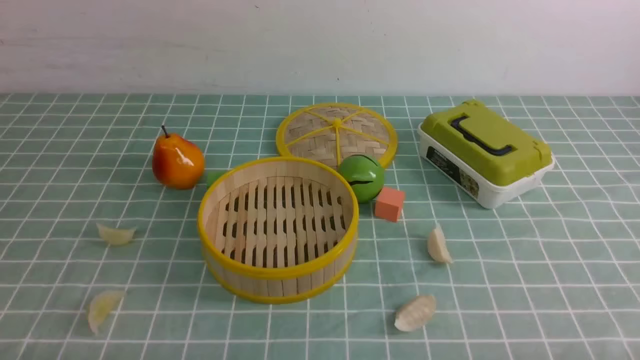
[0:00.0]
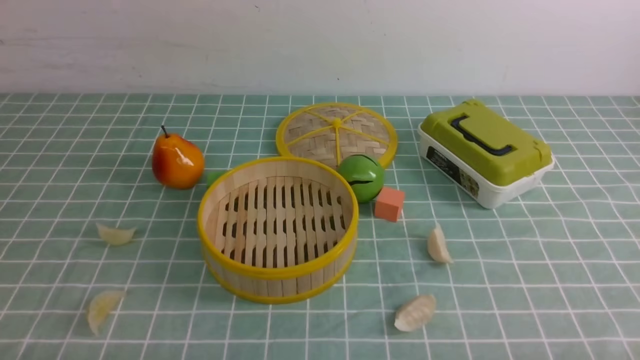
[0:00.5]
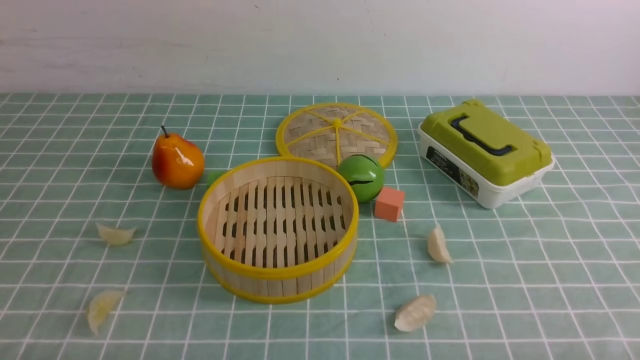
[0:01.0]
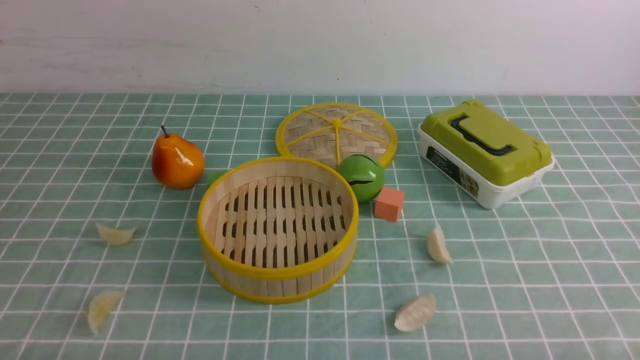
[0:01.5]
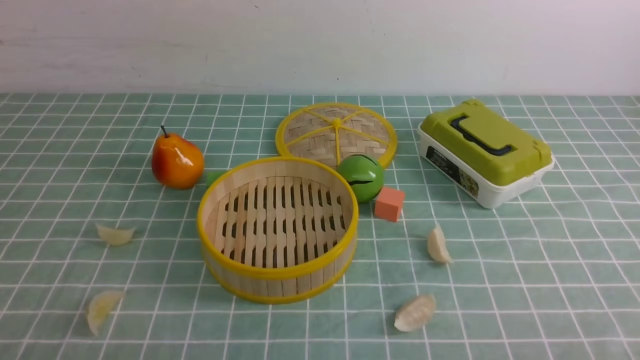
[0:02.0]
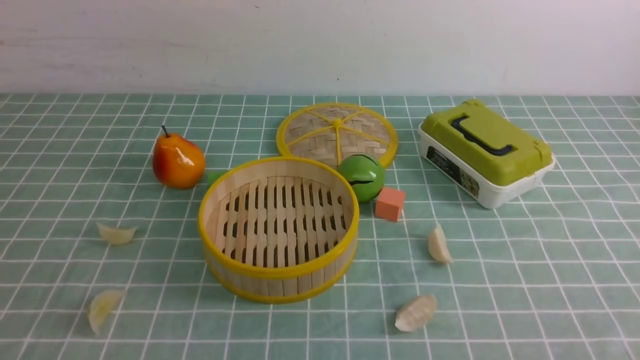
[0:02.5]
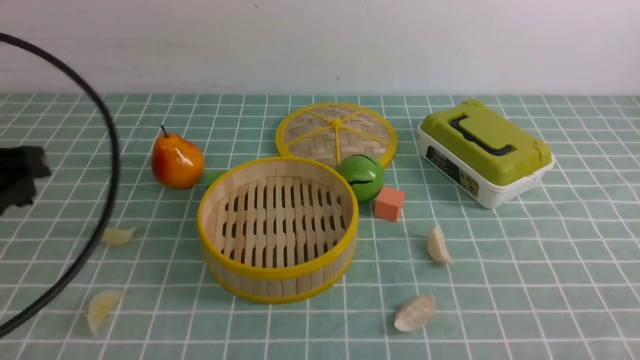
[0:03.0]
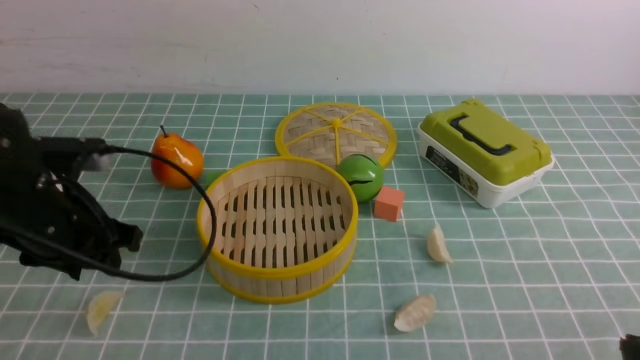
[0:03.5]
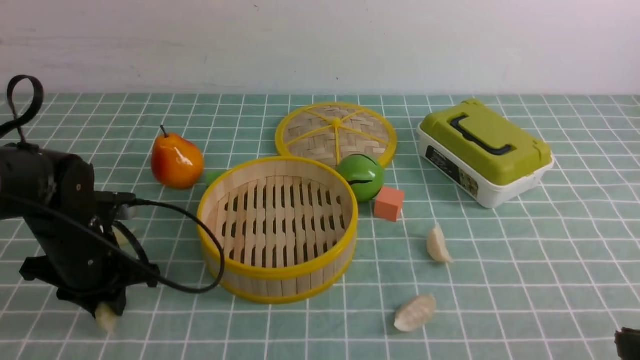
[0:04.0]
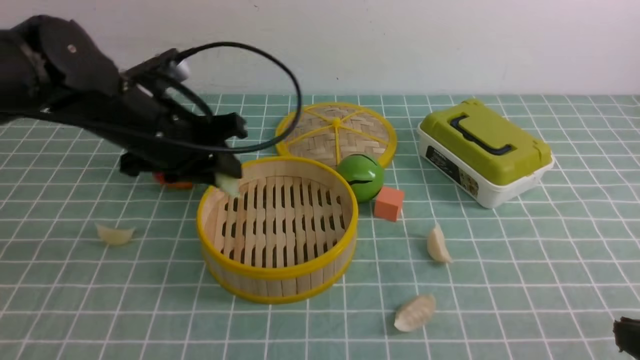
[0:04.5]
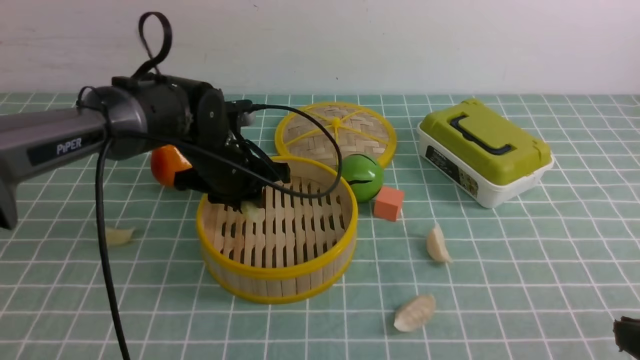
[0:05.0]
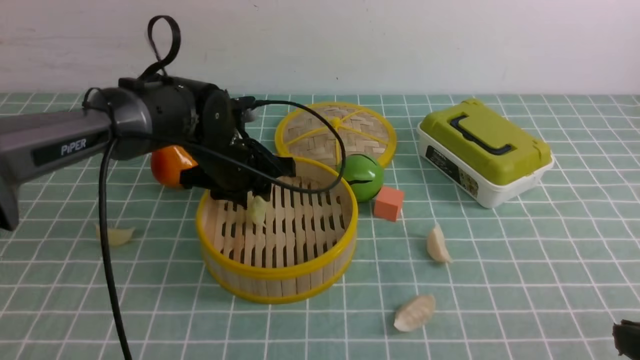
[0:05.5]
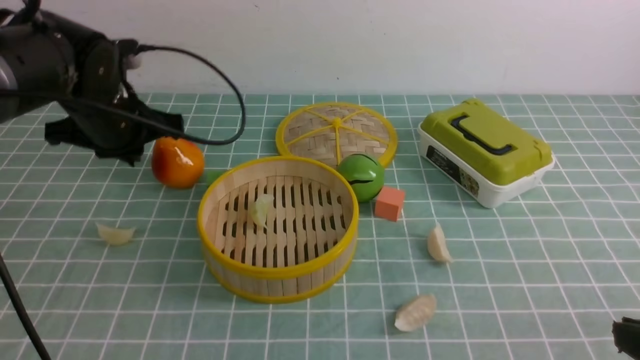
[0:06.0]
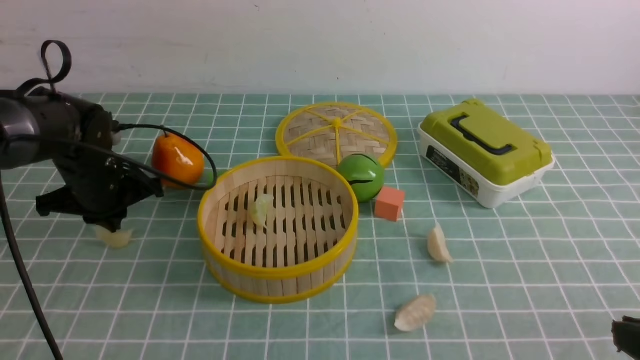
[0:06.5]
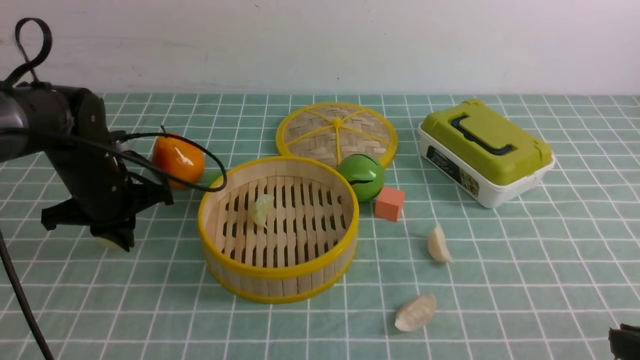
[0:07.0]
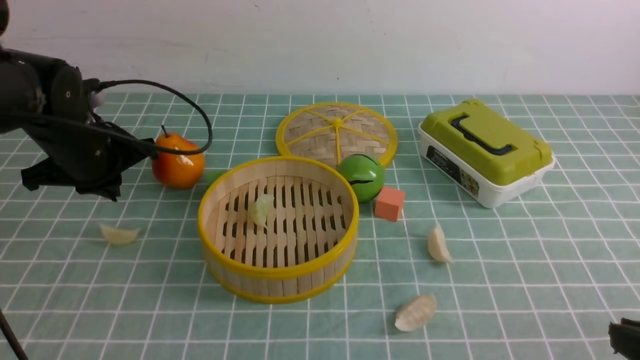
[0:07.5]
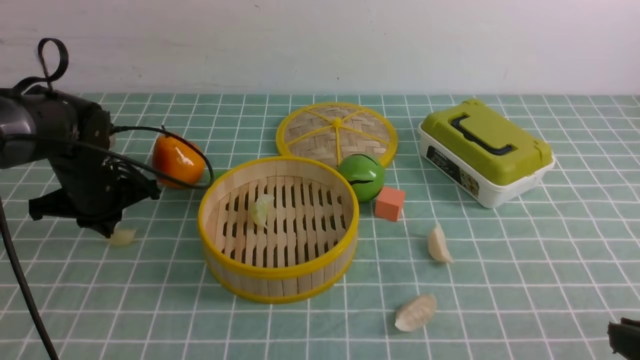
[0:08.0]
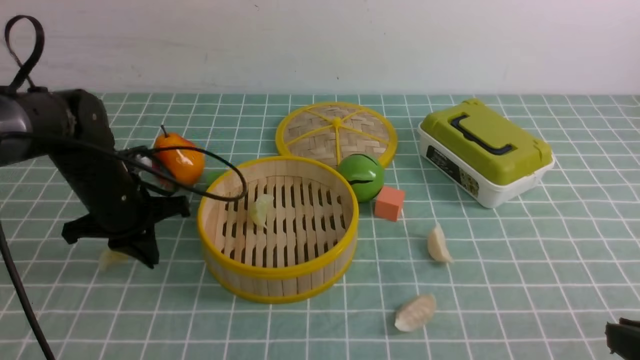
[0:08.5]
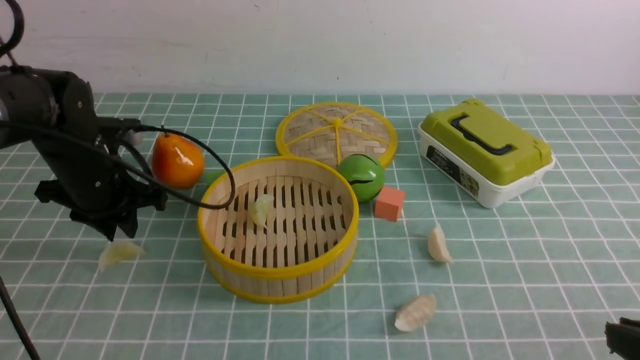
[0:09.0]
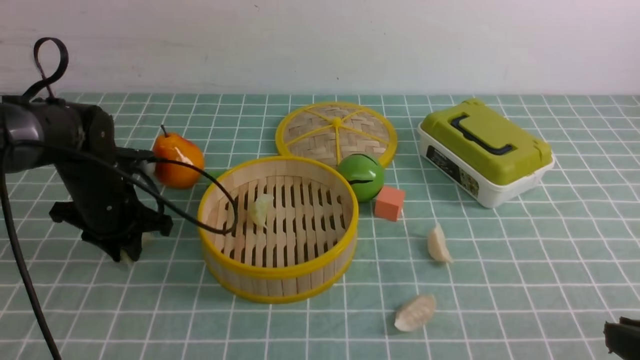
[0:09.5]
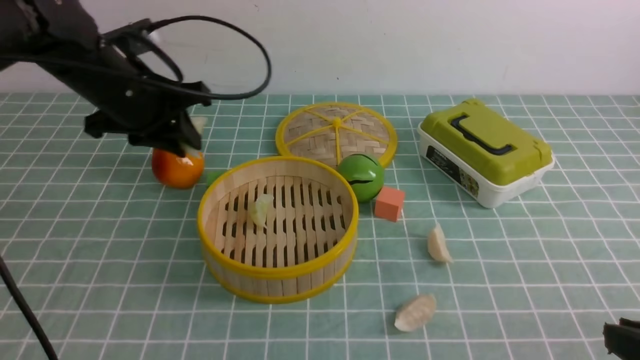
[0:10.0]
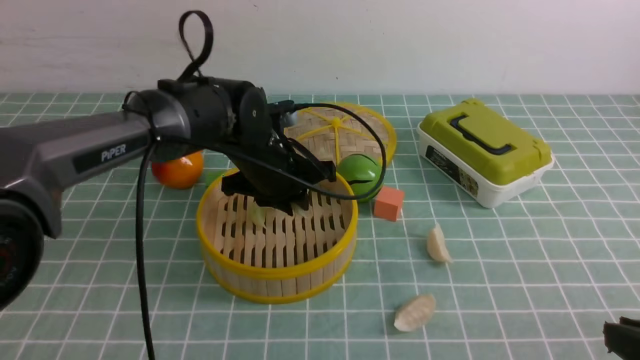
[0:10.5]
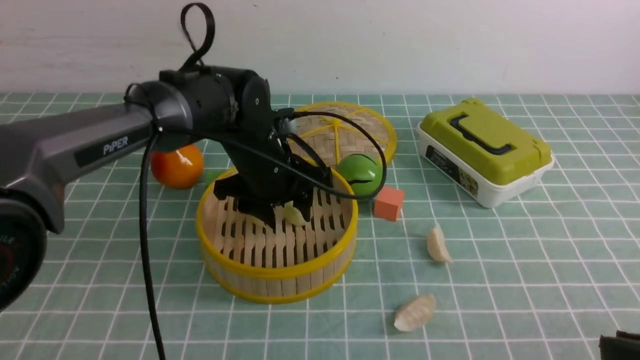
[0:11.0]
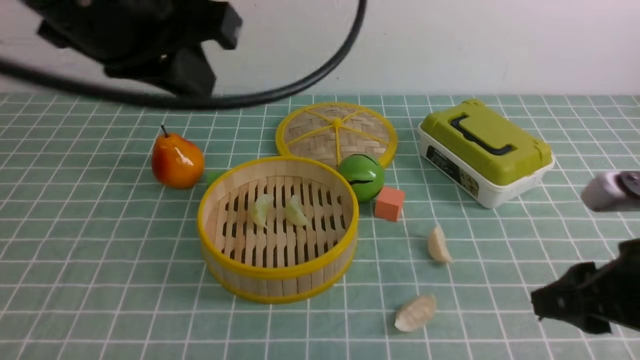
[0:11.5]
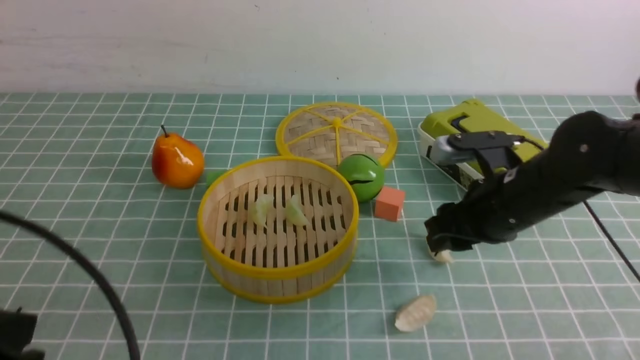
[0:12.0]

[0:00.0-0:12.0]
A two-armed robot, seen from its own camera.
Task of the whole recording: put the dumplings into the steamer on the table with the blue tablecloth.
Step, 0:00.0 to 0:03.5: use the left arm to grab a dumpling.
Step, 0:04.5 to 0:05.5: use the left arm to put the dumpling into the steamer.
Step, 0:06.0 to 0:09.0: use the left arm to grab a dumpling.
Step, 0:10.0 to 0:10.5: use the left arm to put the dumpling into the steamer.
0:02.0 to 0:04.0: The left gripper travels forward by about 30 cm, and closes and opens again.
0:04.0 to 0:06.0: The left gripper goes about 10 cm upward and forward, travels to the right and back again, about 15 cm each way, and closes up.
0:06.0 to 0:08.0: The left gripper goes up and down, about 10 cm each way, reversing 2 times.
0:08.0 to 0:10.0: The left gripper is displaced upward and to the right by some 15 cm, and opens its fingers.
0:10.0 to 0:12.0: The left gripper is displaced backward by approximately 30 cm, and closes; the right gripper shifts approximately 20 cm forward, and opens up.

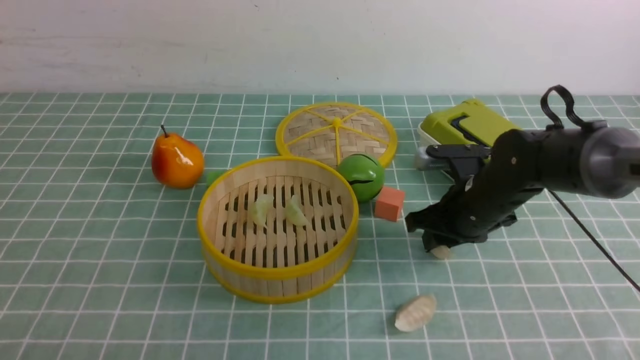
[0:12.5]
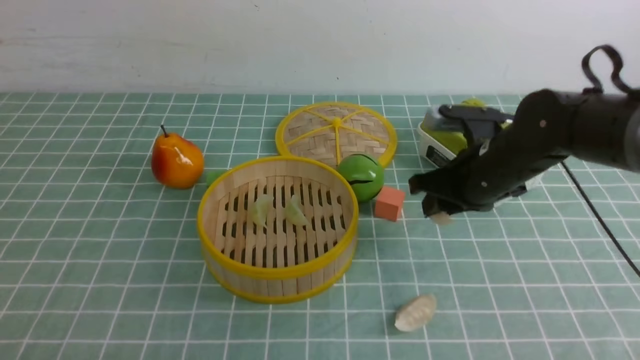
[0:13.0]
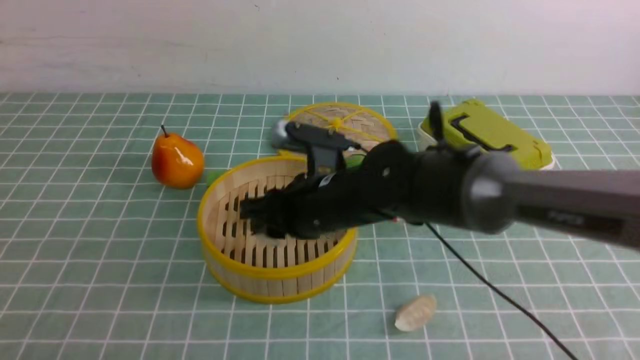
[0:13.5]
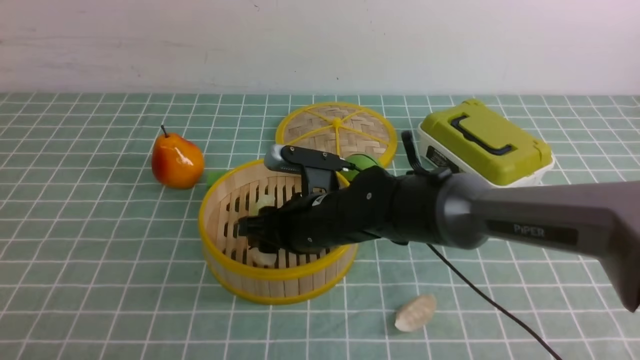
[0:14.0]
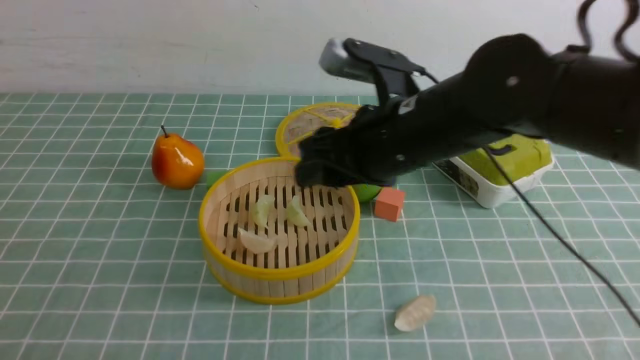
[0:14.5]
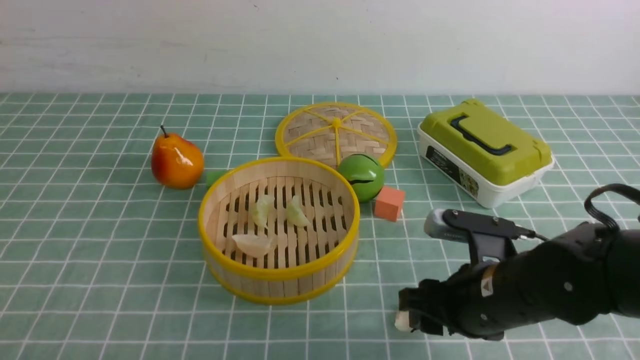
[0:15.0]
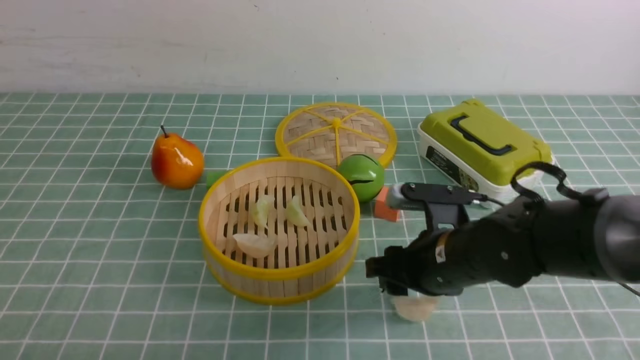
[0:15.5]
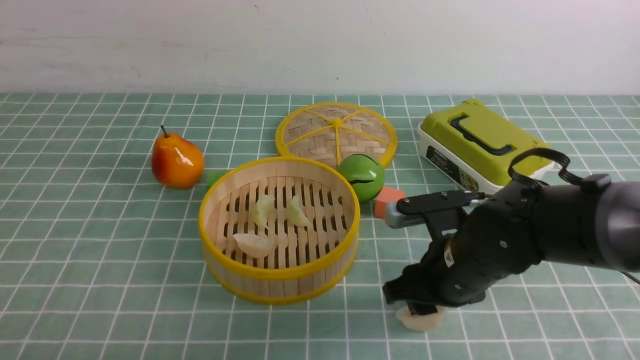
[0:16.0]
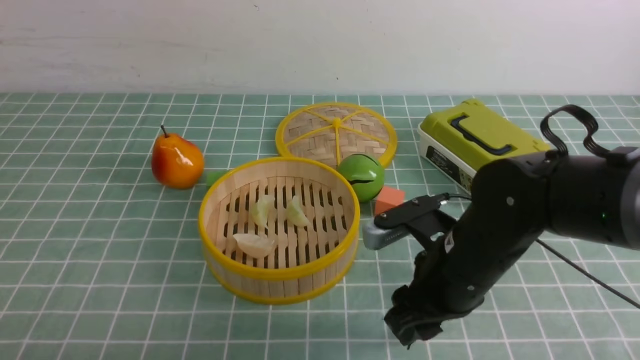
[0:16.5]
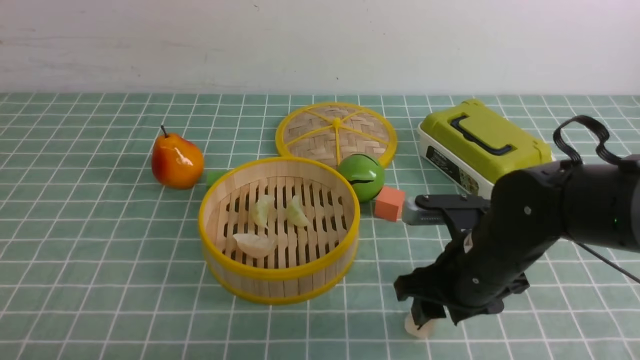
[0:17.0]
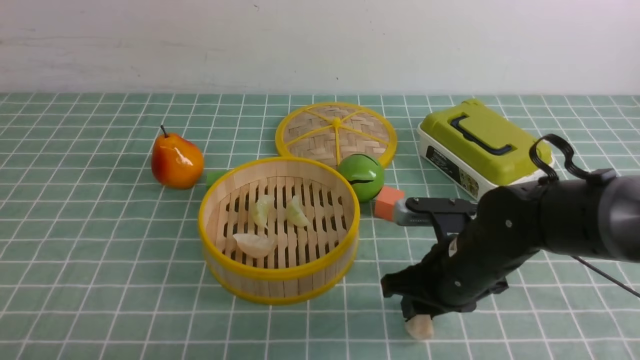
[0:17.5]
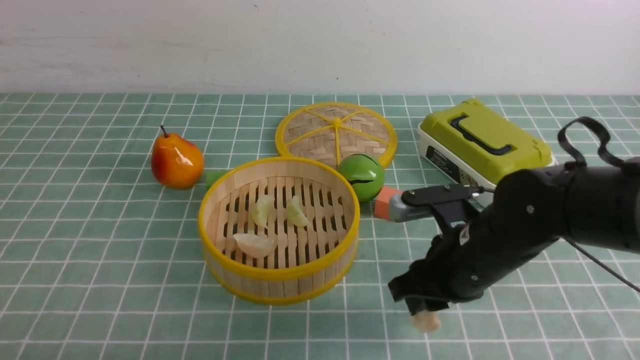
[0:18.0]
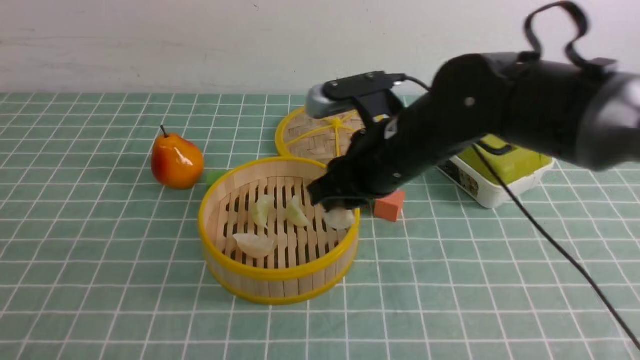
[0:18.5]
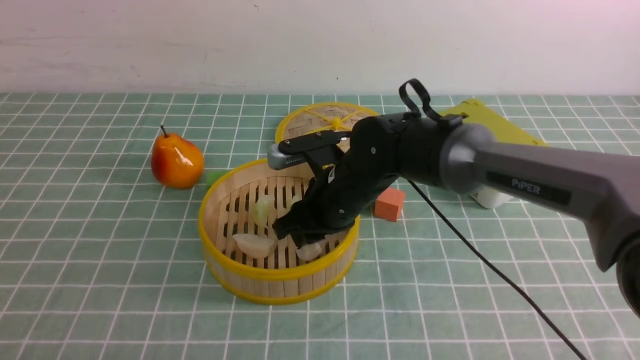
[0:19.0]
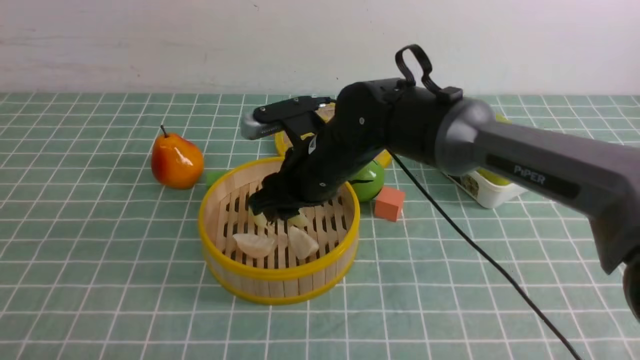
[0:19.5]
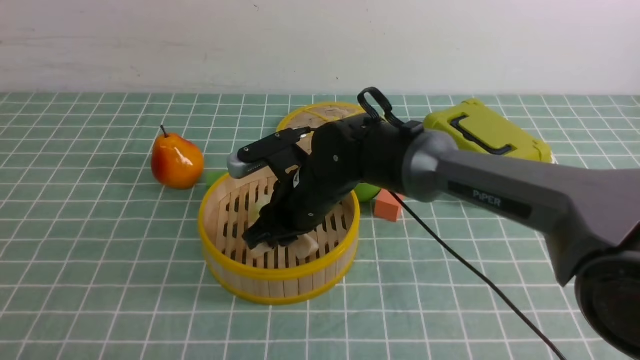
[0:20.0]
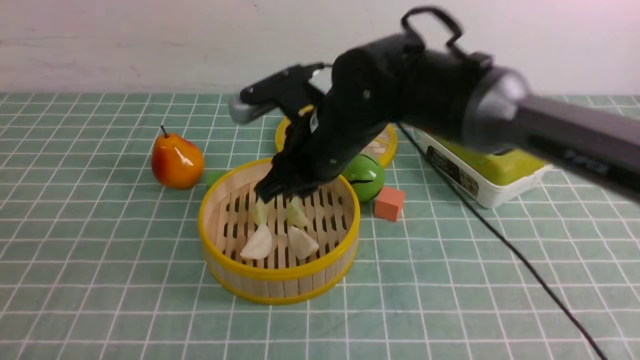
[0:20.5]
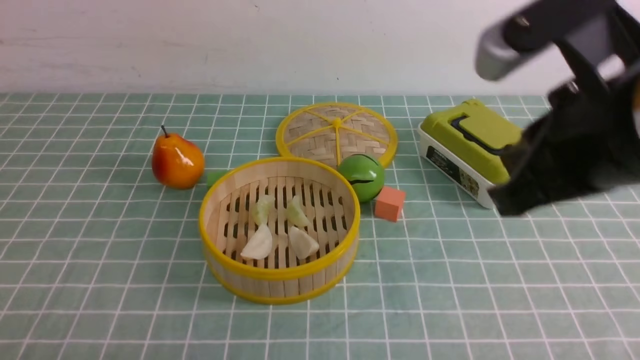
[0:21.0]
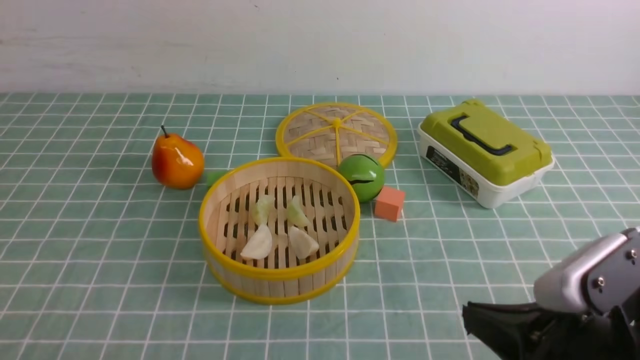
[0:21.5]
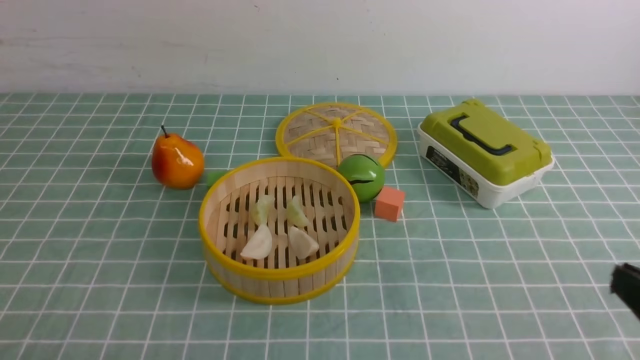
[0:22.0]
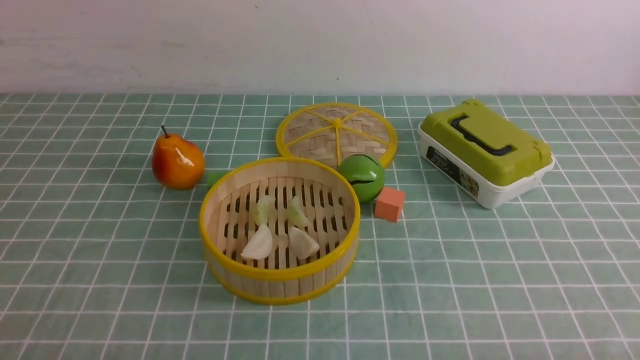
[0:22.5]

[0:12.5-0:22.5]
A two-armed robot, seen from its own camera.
Task of the whole recording: put the dumplings into the steamer on the table with the blue tablecloth.
Step, 0:13.0 to 0:14.0: use the right arm to put the dumpling into the steamer.
Step, 0:14.5 to 0:17.5: use the right arm to grab a dumpling.
Step, 0:18.0 to 0:19.5: use the right arm to put the dumpling into the steamer.
0:12.5 to 0:14.5: The right gripper travels upward, to the left and backward by approximately 15 cm.
0:14.5 to 0:16.5: The right gripper goes some 10 cm downward and to the right.
0:16.5 to 0:18.5: The right gripper travels forward, upward and to the left by some 10 cm, and closes its fingers.
0:20.5 to 0:22.5: The right gripper is displaced to the right, backward and downward by about 40 cm, and closes up.
